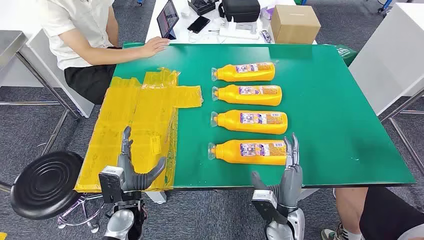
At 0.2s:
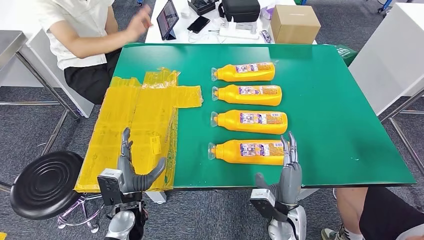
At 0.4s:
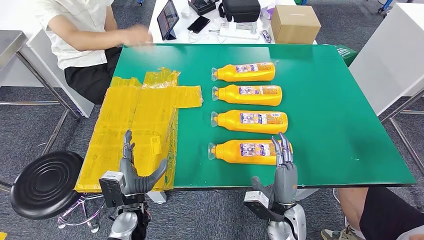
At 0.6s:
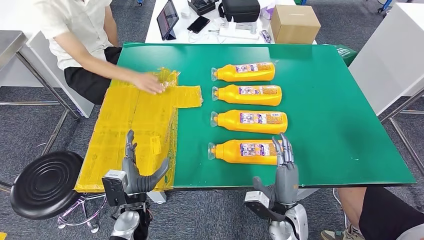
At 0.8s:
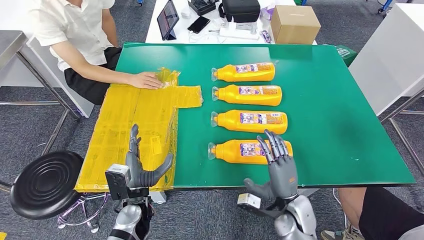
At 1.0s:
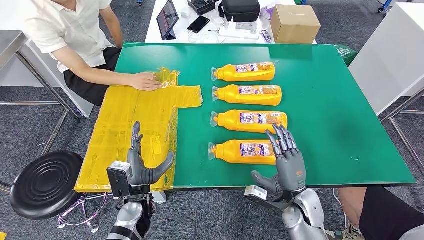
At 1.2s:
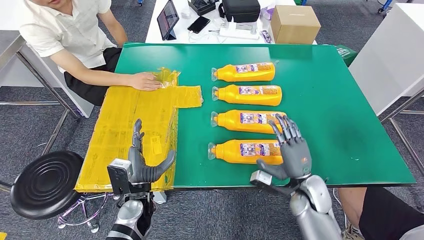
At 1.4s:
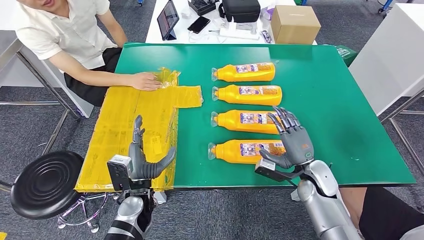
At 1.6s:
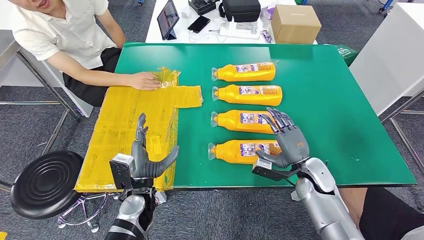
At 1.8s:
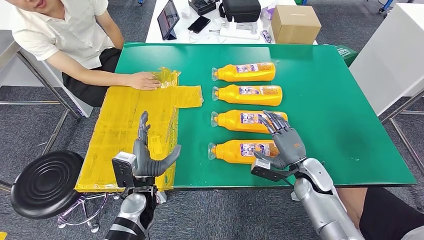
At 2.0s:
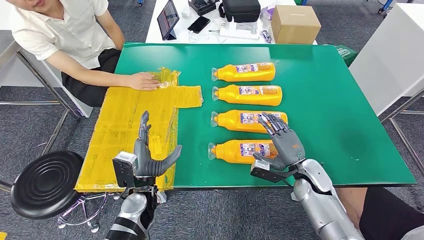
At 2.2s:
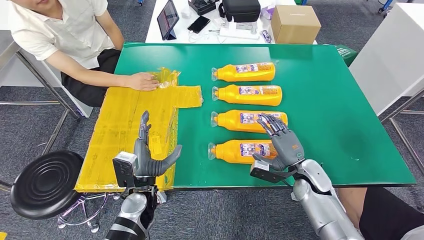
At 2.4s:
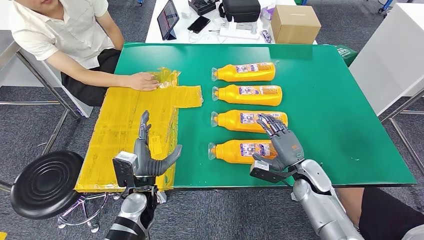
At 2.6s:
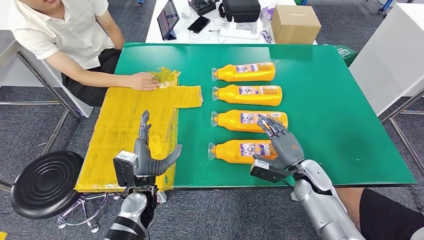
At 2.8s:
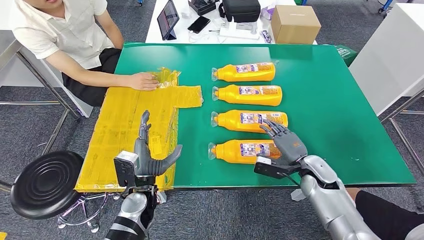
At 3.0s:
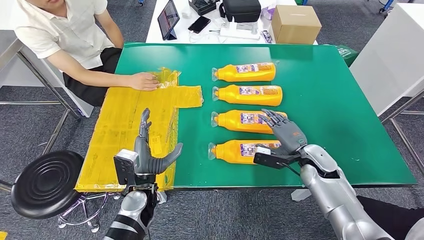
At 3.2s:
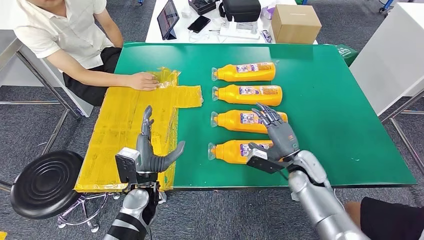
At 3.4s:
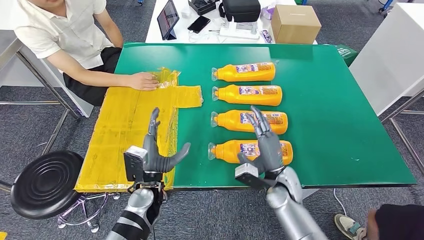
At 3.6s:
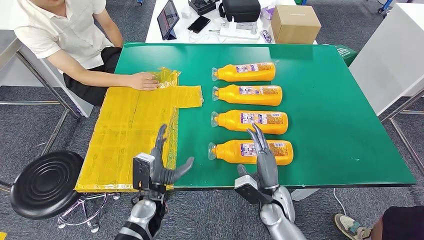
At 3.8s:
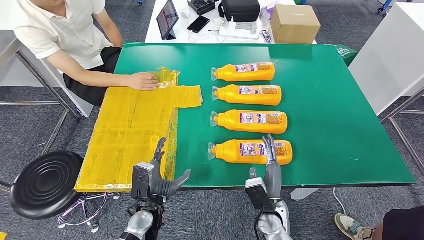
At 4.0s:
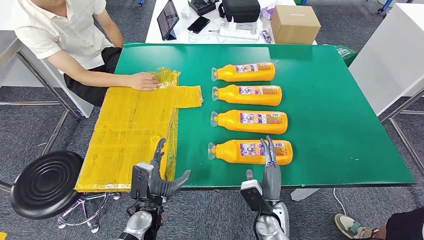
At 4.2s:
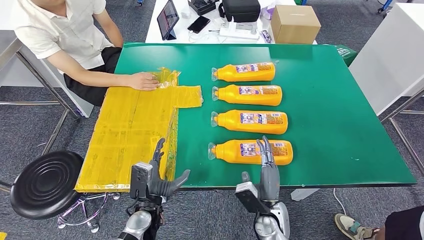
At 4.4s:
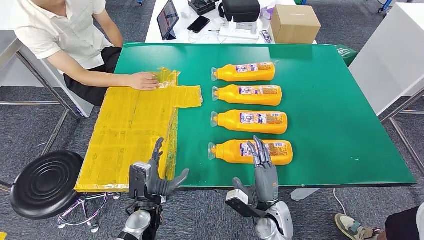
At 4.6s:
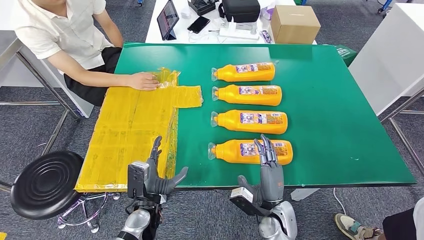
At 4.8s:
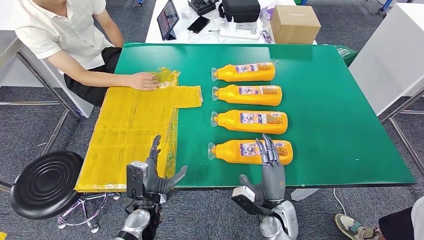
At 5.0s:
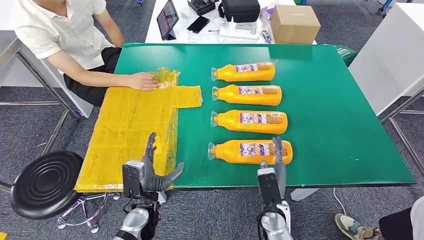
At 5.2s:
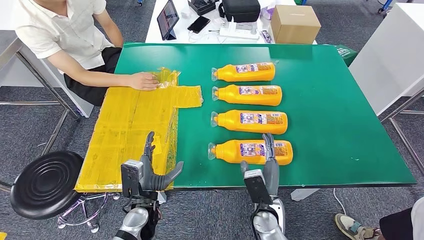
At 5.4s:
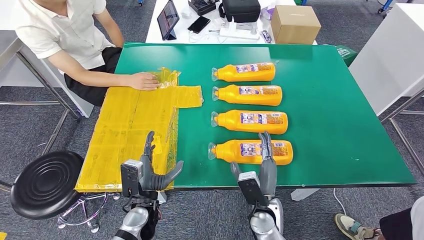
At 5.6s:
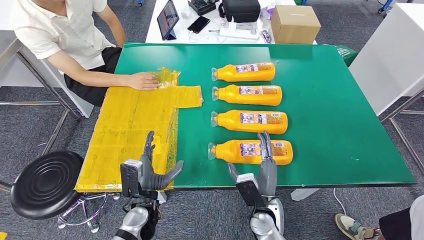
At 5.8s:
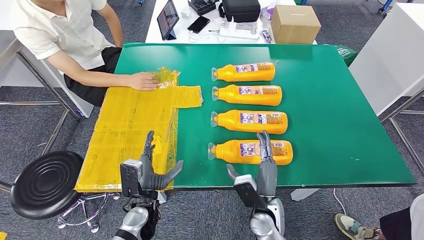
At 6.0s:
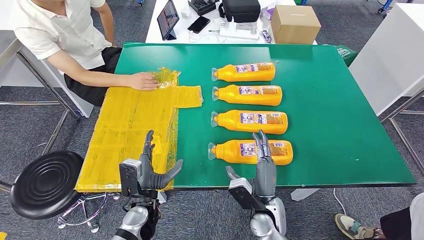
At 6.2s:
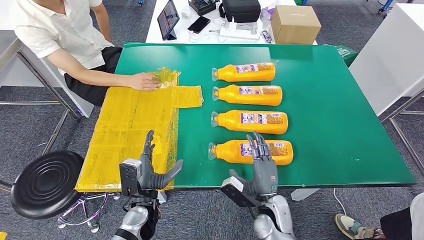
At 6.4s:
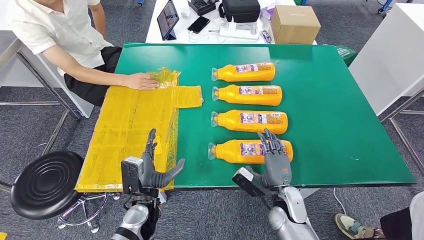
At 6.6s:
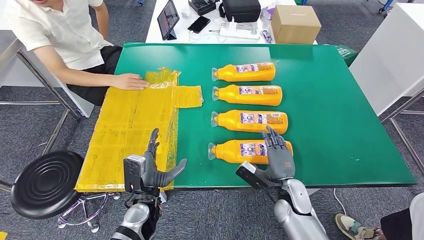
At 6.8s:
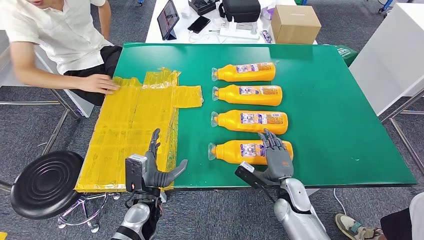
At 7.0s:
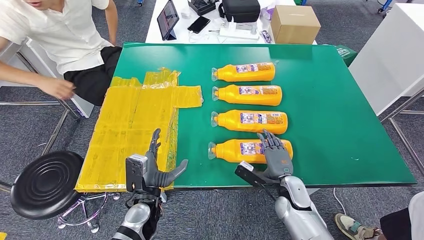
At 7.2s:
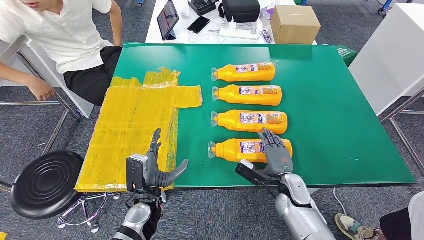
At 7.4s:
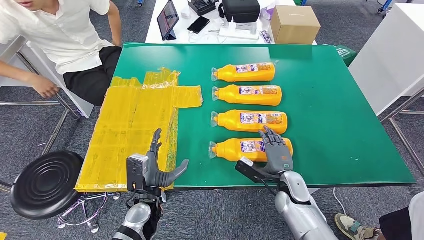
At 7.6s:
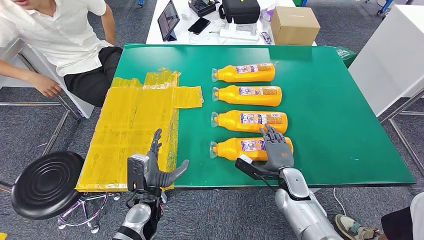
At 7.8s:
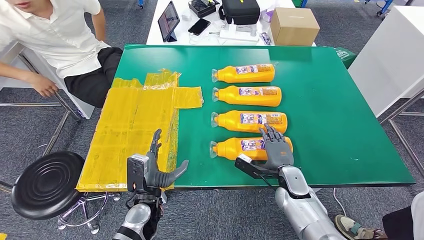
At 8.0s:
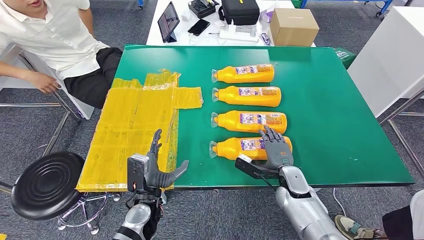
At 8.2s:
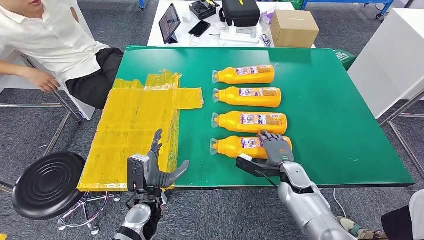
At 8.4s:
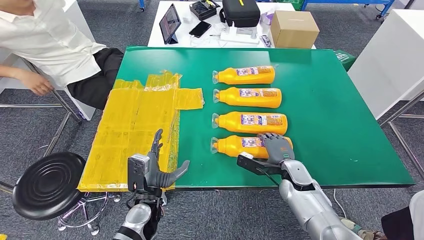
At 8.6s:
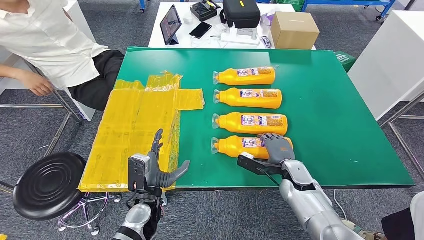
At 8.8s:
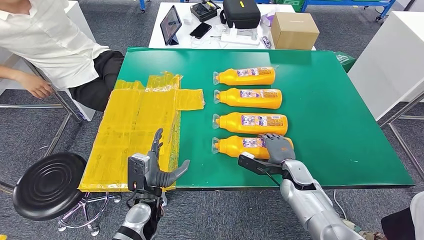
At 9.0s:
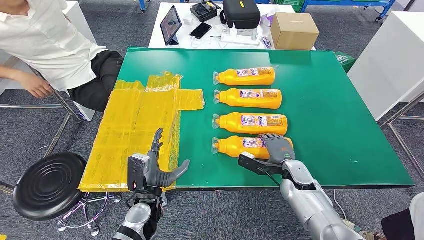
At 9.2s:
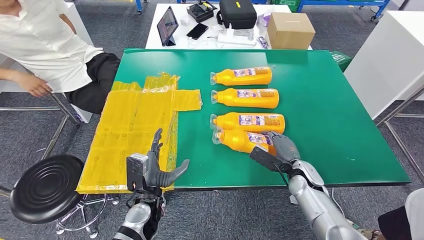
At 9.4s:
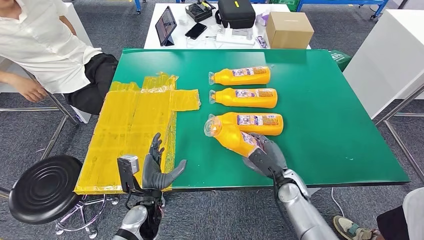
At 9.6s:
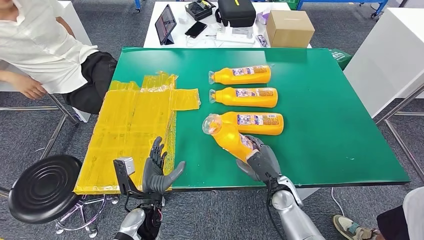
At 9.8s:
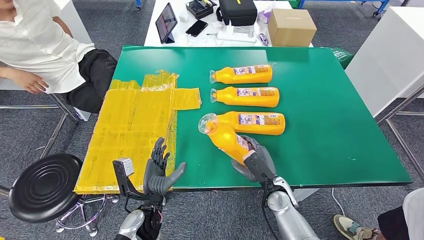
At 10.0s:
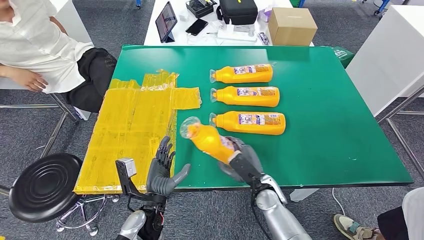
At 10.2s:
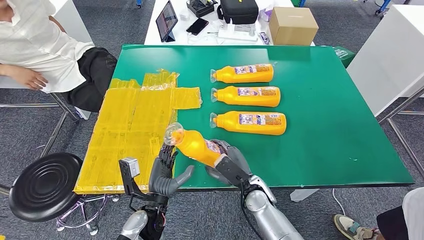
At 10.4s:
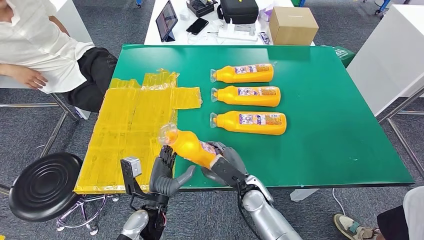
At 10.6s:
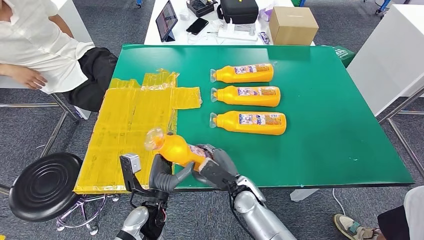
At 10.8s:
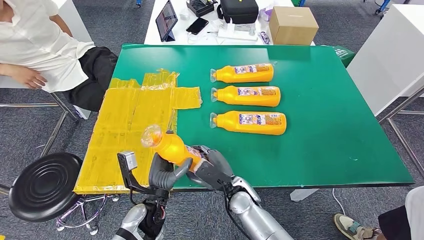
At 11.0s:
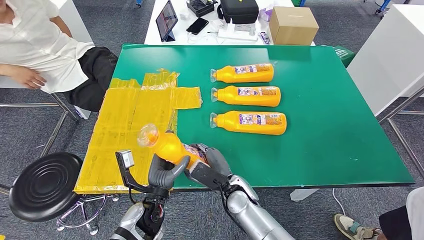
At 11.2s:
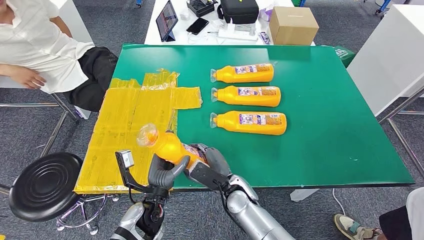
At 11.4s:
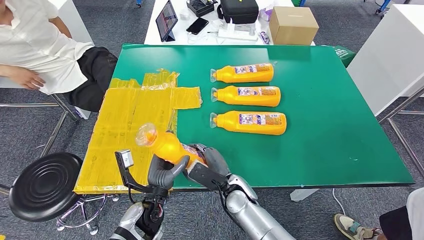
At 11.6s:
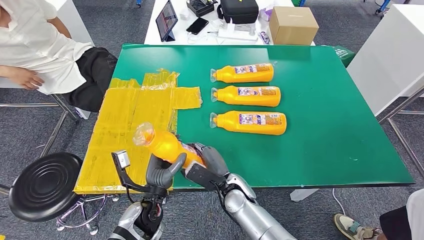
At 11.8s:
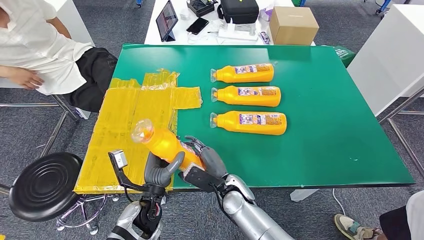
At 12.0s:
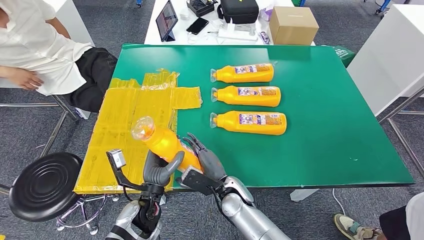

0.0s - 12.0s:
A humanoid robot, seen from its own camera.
Step, 0.0s - 9.4s: Take the bottle from the table.
3.0s - 4.4s: The left hand heads downward, covering approximately 5 cm; the right hand goes about 20 cm to the left, backward and downward.
6.0s - 7.6s: The right hand heads to the right and forward, covering some 10 cm.
10.4s - 12.0s: The right hand heads to the left, covering roughly 5 cm.

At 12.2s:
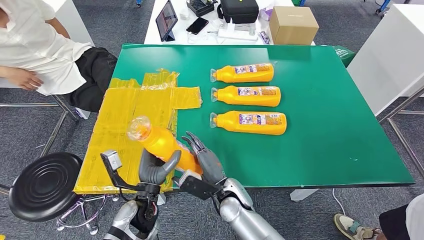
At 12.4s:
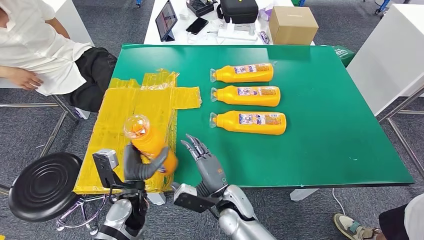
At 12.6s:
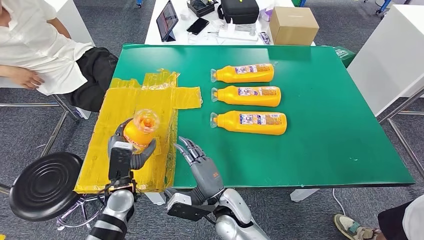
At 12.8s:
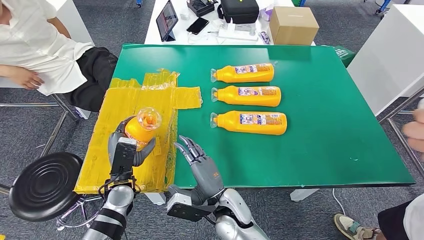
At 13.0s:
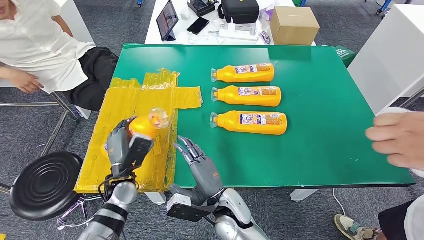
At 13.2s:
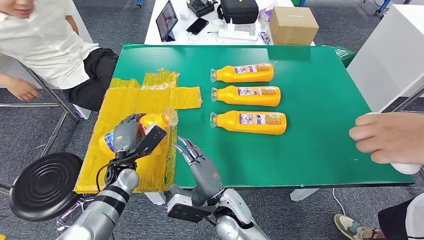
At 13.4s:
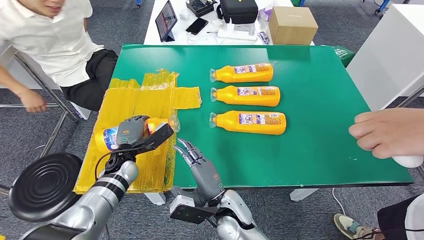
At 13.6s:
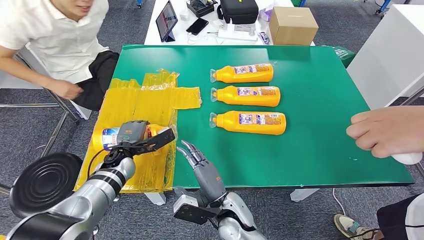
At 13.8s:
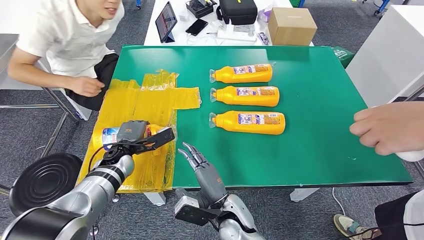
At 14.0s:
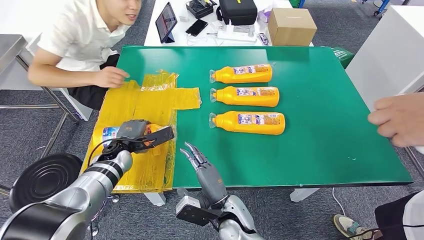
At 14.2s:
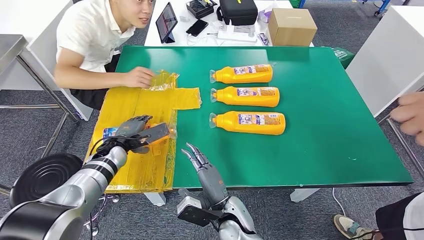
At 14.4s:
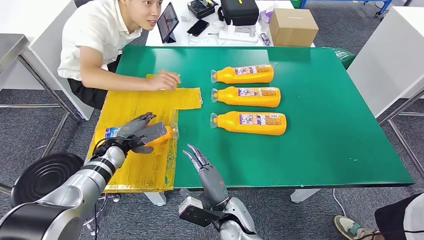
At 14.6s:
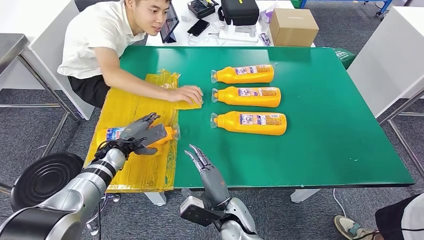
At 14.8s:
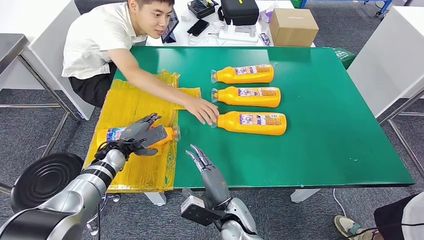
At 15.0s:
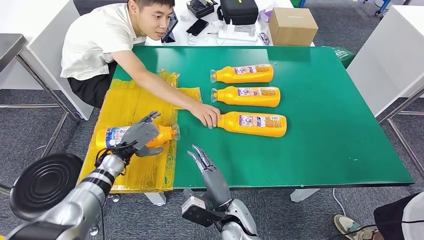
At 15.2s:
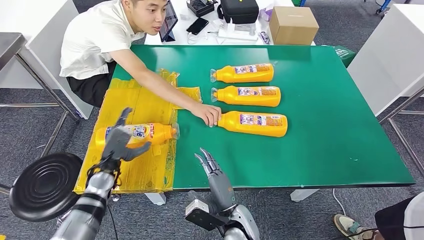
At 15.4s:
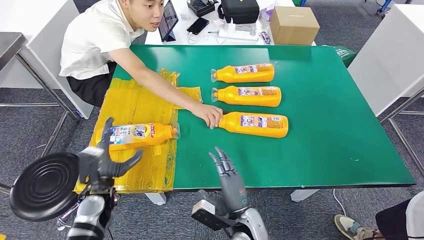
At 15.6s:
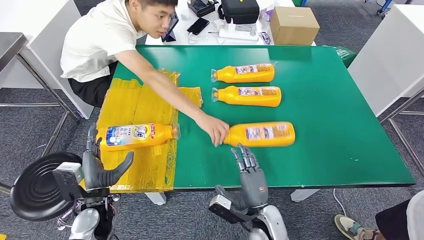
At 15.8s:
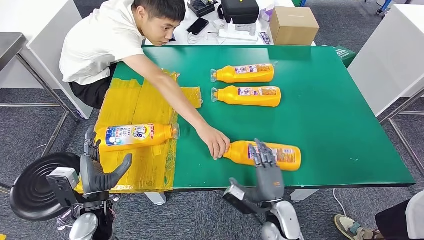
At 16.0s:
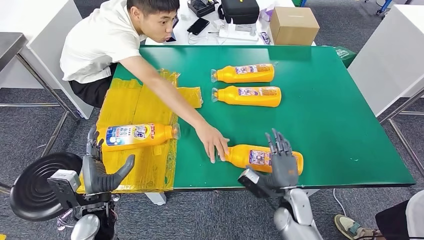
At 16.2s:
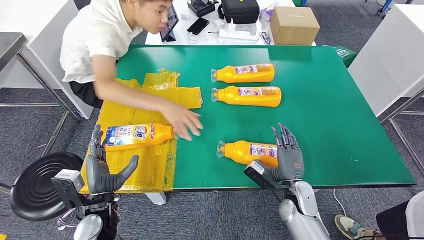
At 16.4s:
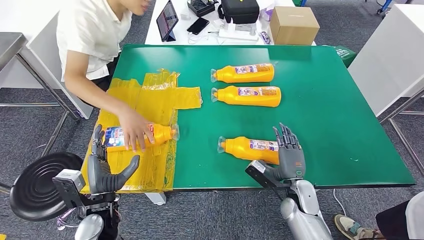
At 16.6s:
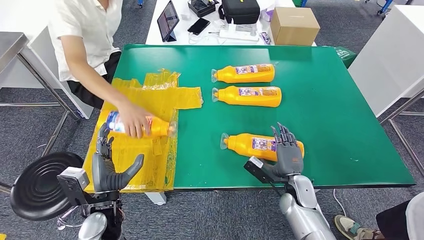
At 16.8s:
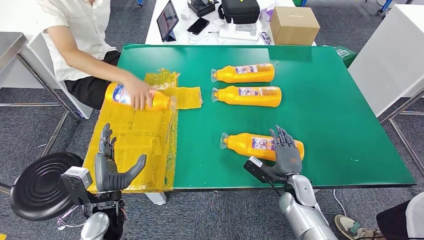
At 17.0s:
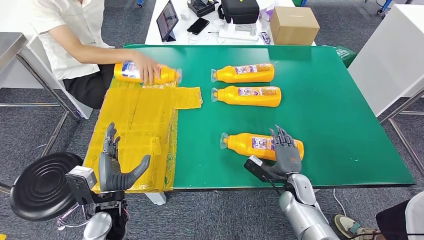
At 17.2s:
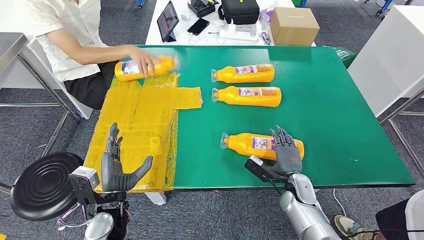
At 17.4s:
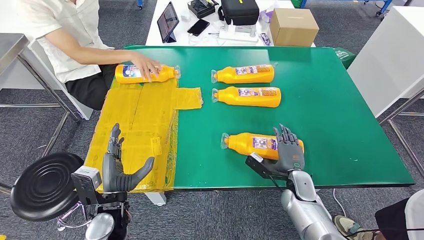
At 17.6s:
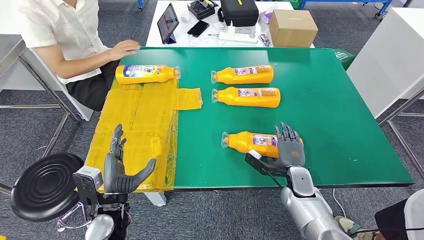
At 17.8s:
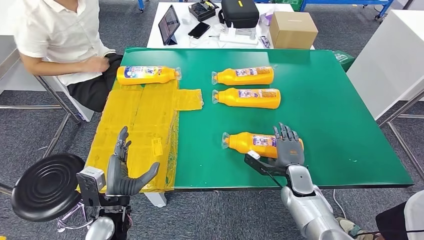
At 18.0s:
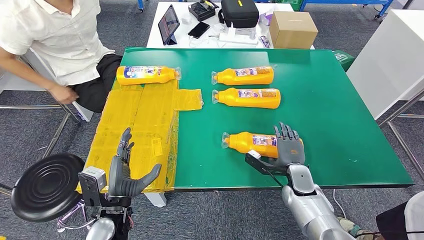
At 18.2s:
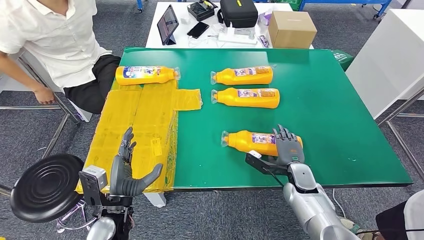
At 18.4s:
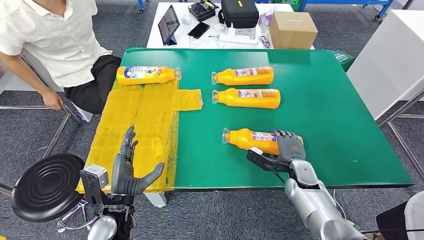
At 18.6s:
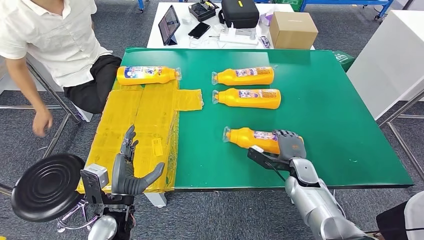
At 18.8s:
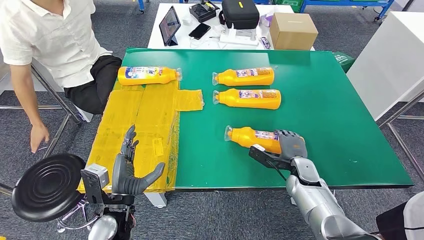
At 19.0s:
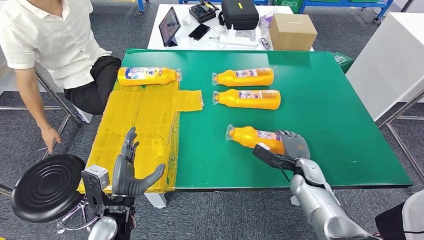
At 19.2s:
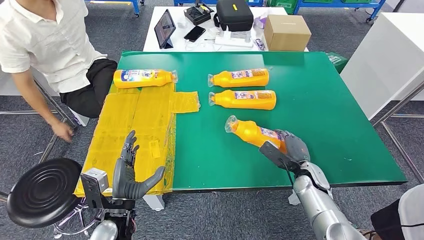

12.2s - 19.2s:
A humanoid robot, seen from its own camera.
Step, 12.2s - 16.0s: Flip the bottle to face forward.
